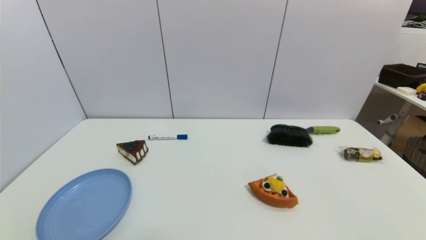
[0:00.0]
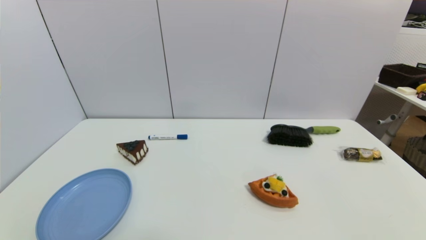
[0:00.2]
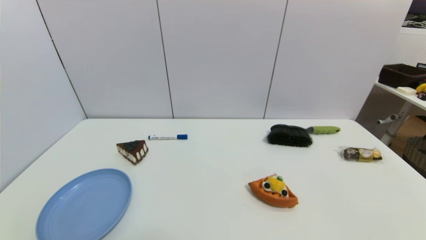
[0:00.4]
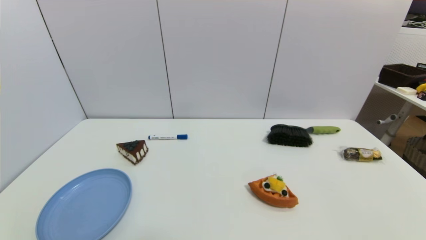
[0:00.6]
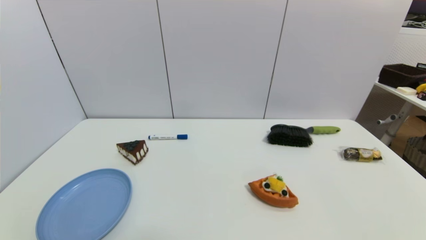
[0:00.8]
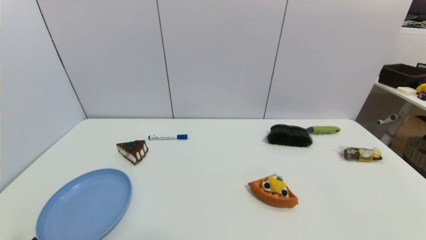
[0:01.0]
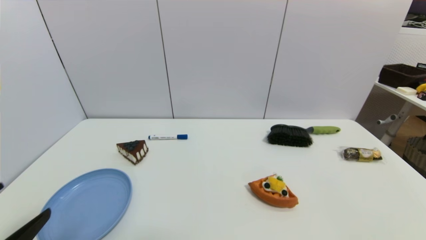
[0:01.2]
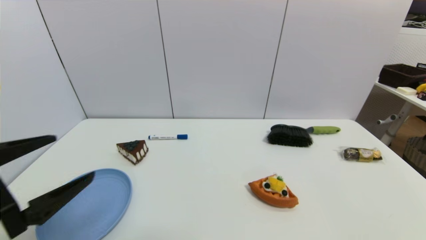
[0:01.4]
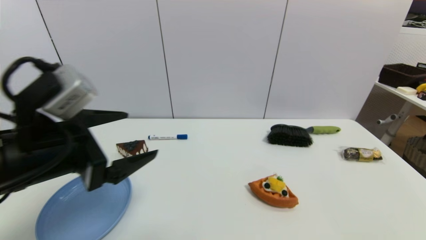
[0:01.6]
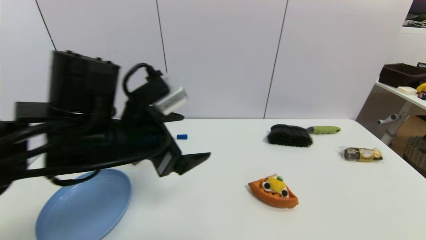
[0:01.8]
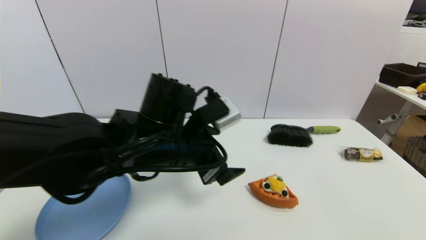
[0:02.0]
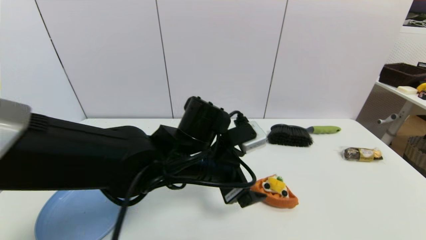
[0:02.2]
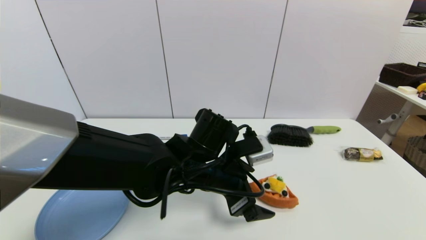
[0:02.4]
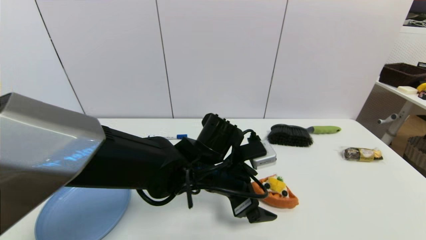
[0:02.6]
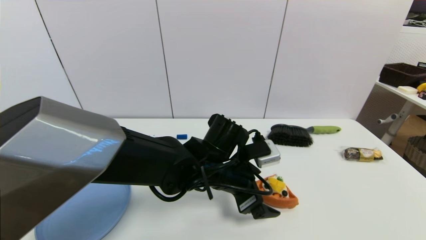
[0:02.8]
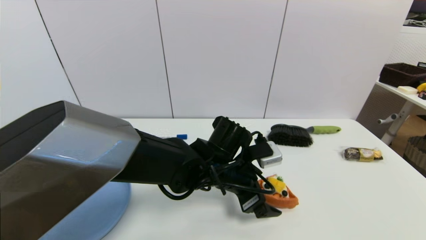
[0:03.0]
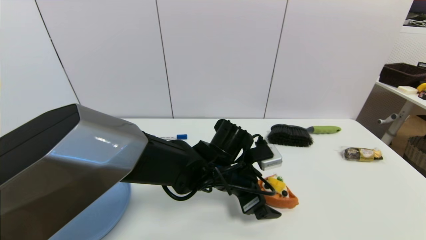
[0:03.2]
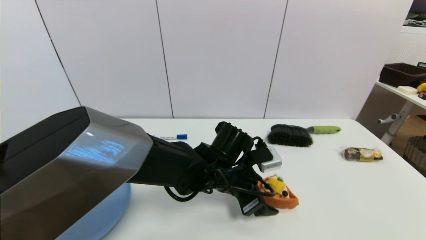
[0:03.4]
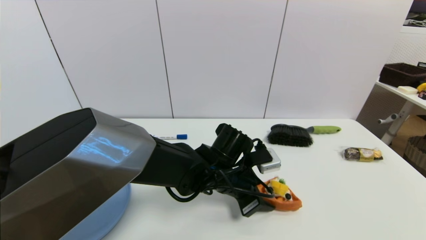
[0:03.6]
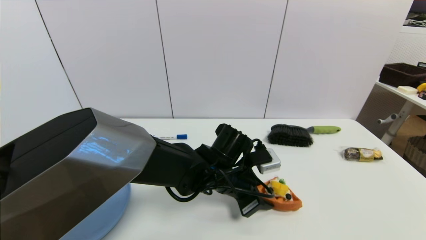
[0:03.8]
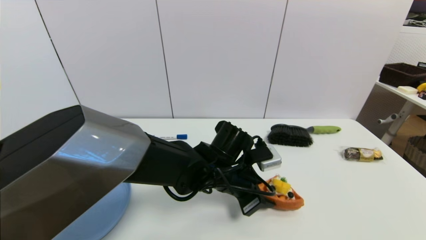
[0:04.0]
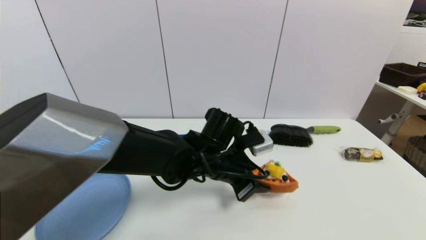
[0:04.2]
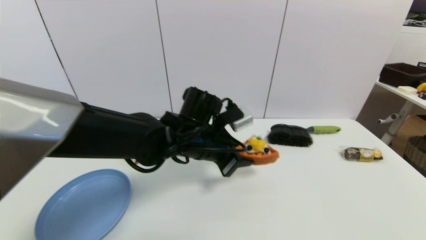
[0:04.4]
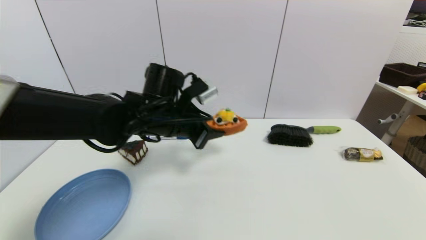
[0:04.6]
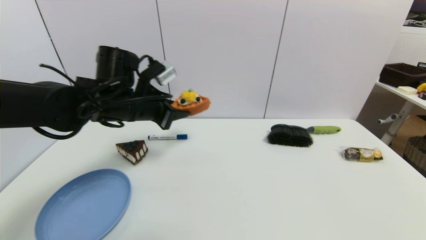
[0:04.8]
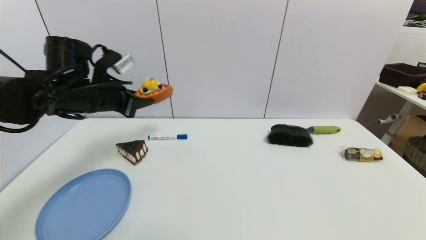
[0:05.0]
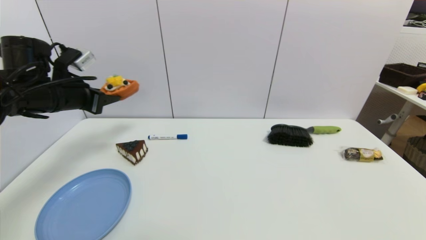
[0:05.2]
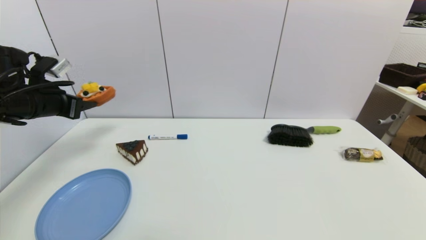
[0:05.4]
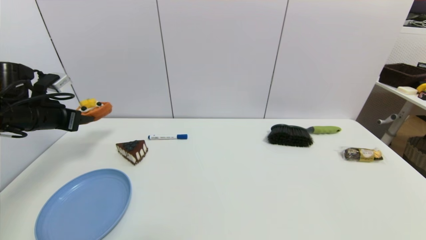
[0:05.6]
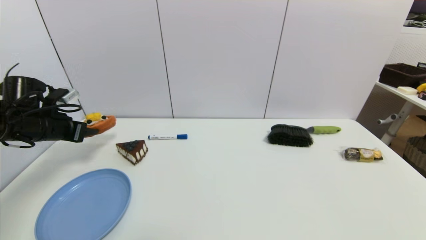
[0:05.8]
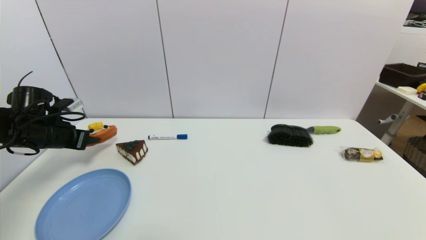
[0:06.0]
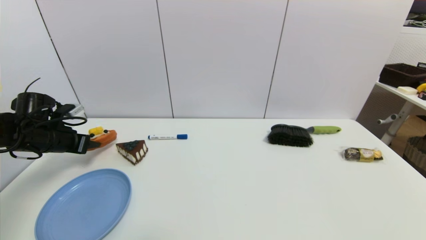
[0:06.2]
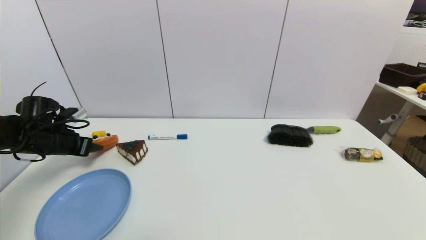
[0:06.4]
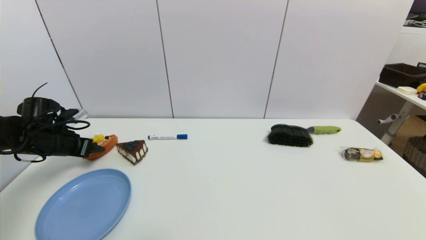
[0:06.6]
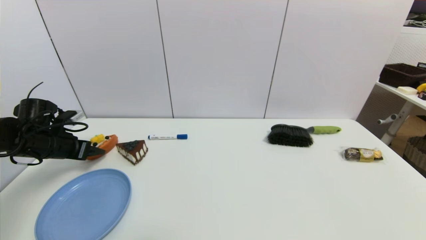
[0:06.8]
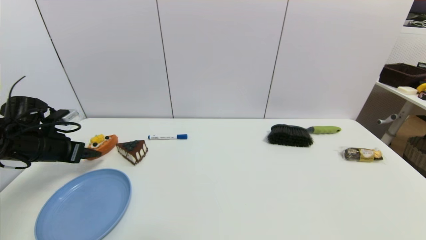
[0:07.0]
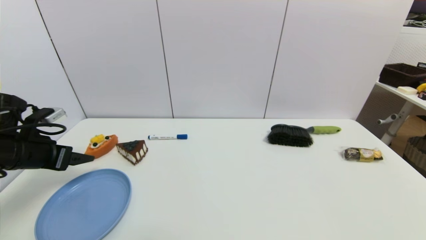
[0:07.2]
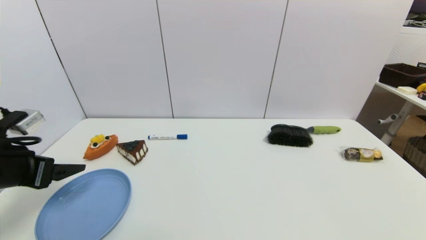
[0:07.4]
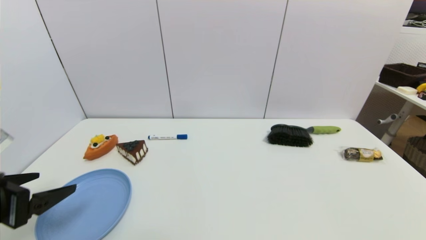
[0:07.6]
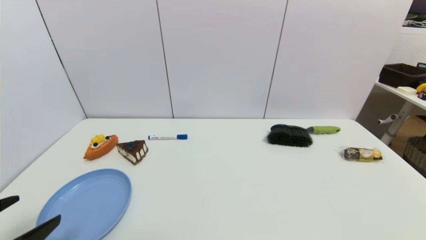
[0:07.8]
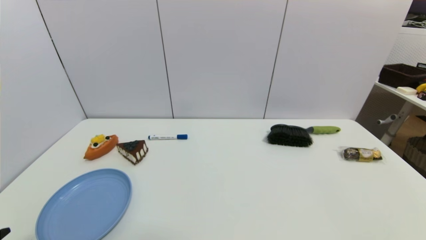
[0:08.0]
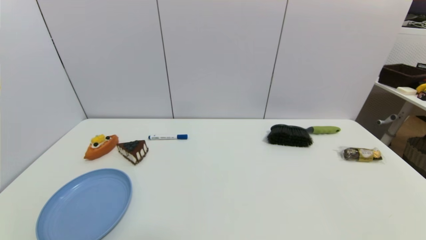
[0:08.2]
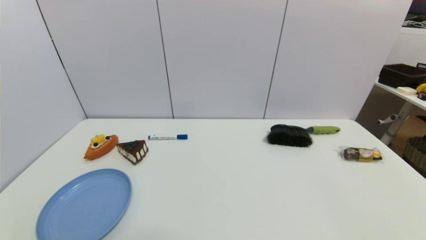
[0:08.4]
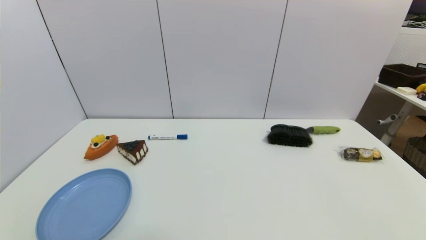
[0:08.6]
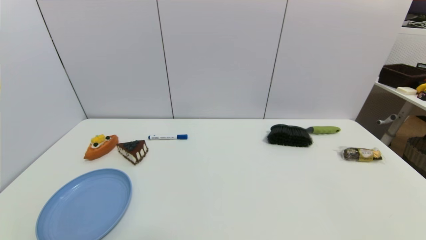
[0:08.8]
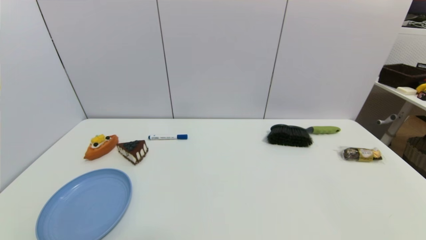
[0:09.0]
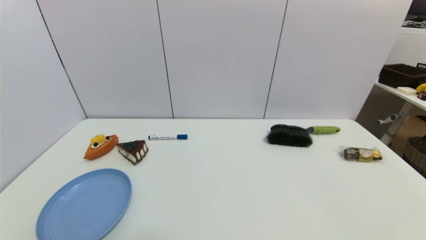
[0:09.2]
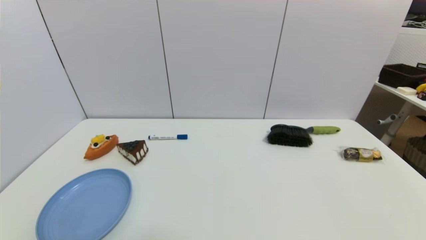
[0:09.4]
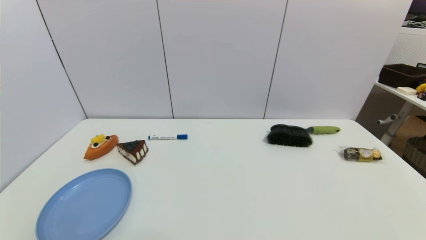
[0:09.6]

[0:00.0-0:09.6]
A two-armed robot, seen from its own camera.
Step, 0:01.0 to 0:03.8: Grasp the pizza with left gripper.
Step, 0:04.2 to 0:06.8: Place the pizza on the table with left gripper.
0:00.0 to 0:01.6: The left gripper shifts roughly 30 cm upward, forward and to the right.
0:01.6 to 0:03.2: The left gripper shifts some 30 cm to the right, downward and forward.
0:03.2 to 0:04.8: The left gripper moves to the left and upward, roughly 25 cm, and closes up.
0:04.8 to 0:06.4: The left gripper moves to the left and downward, some 25 cm.
0:06.4 to 0:08.0: The left gripper travels backward by about 35 cm, and opens up.

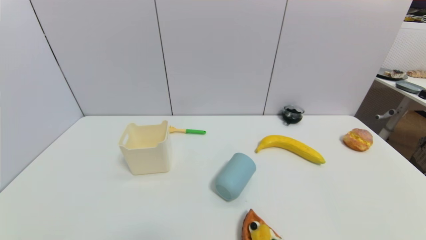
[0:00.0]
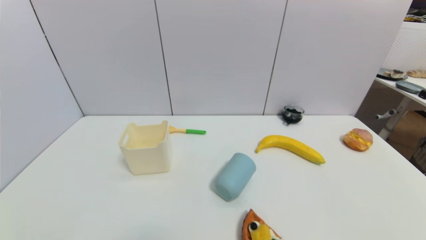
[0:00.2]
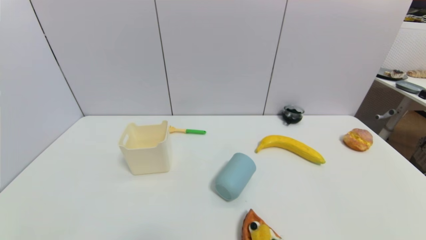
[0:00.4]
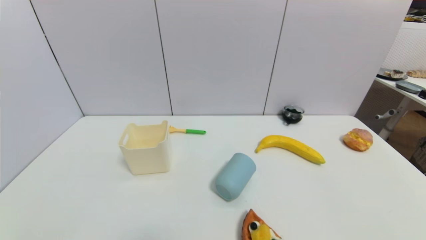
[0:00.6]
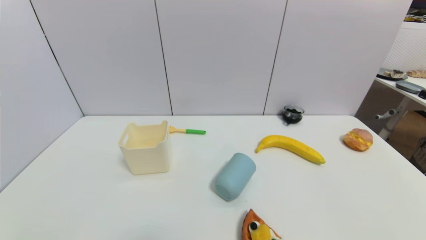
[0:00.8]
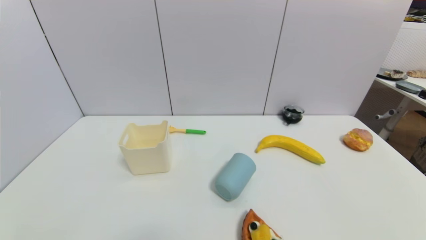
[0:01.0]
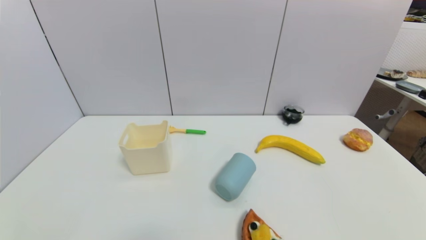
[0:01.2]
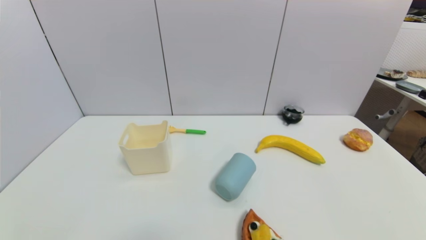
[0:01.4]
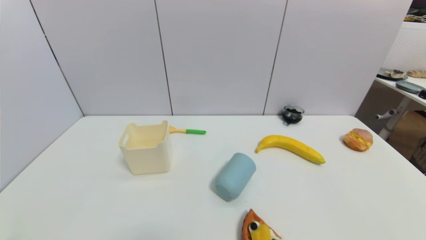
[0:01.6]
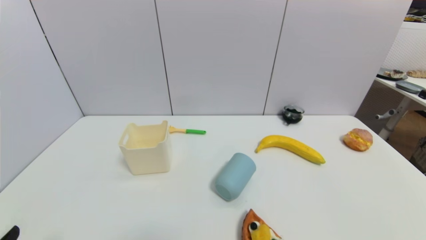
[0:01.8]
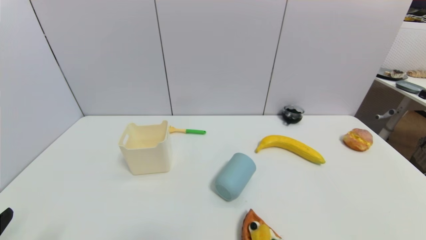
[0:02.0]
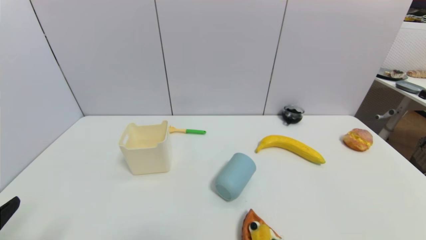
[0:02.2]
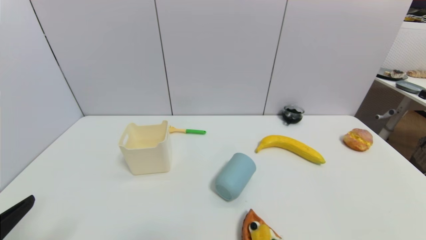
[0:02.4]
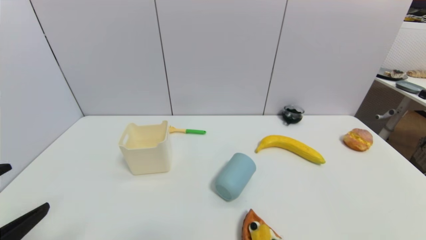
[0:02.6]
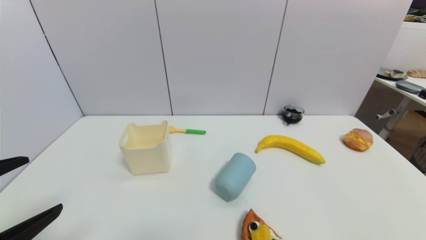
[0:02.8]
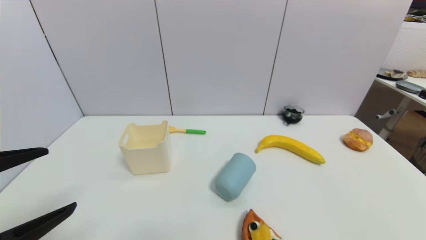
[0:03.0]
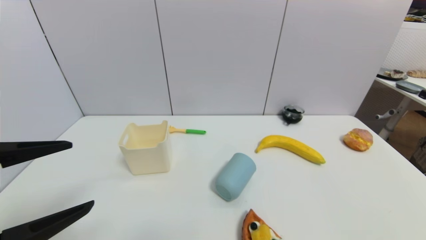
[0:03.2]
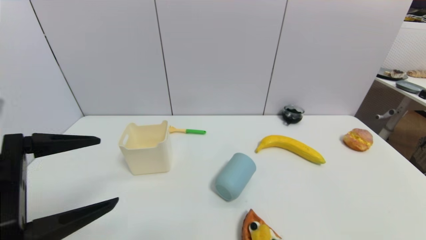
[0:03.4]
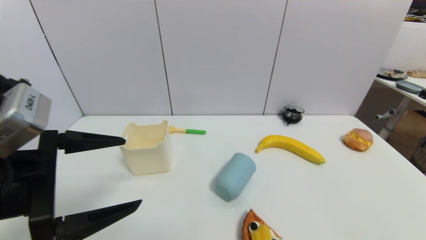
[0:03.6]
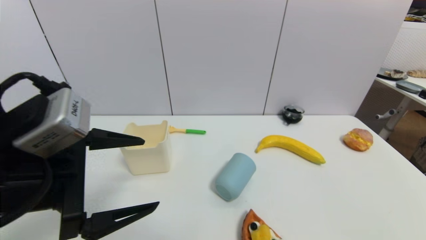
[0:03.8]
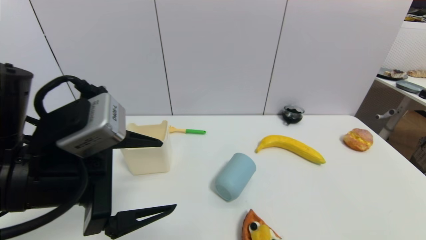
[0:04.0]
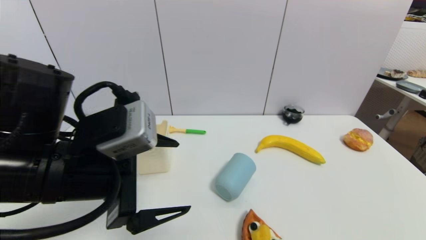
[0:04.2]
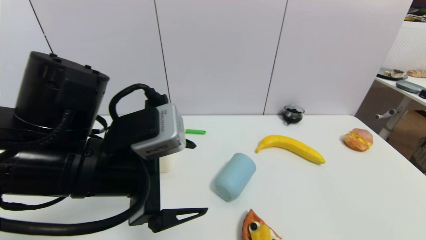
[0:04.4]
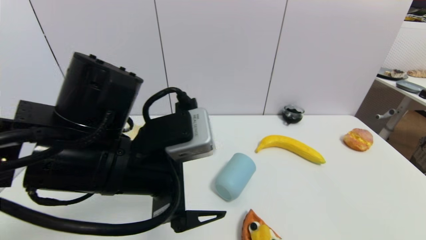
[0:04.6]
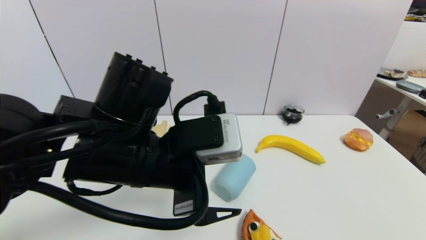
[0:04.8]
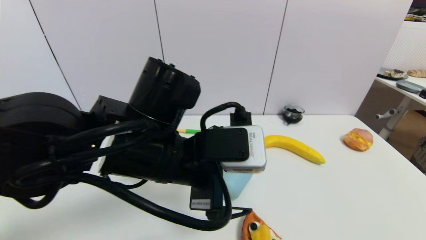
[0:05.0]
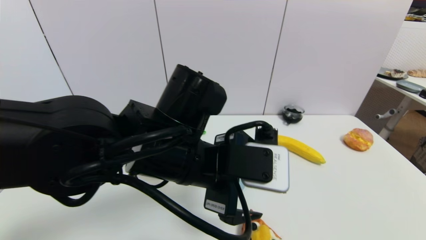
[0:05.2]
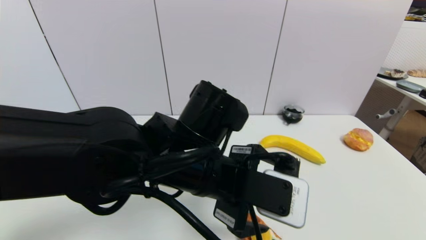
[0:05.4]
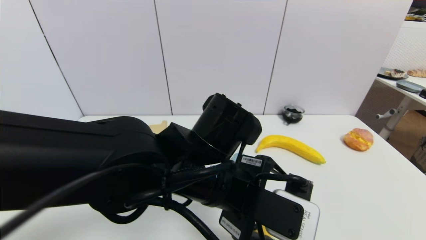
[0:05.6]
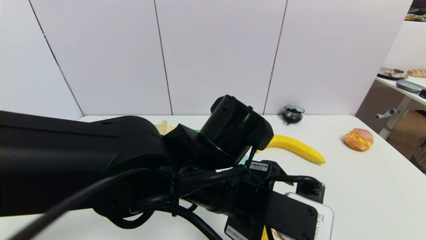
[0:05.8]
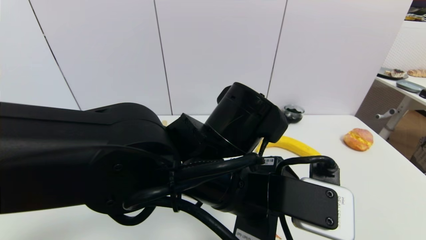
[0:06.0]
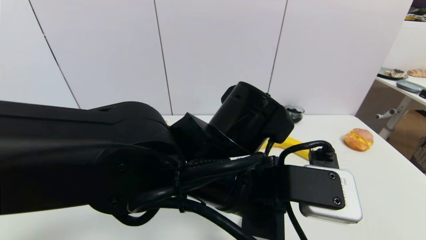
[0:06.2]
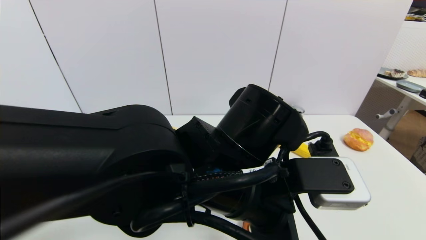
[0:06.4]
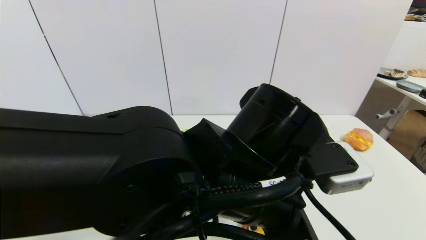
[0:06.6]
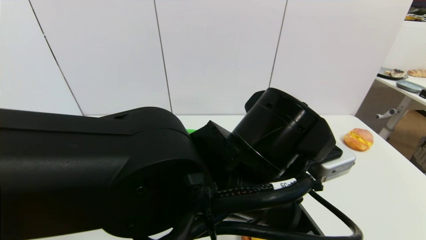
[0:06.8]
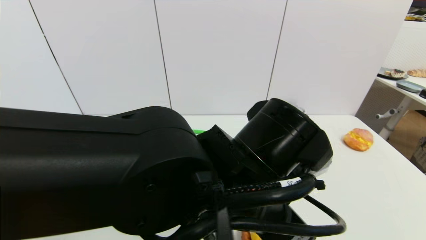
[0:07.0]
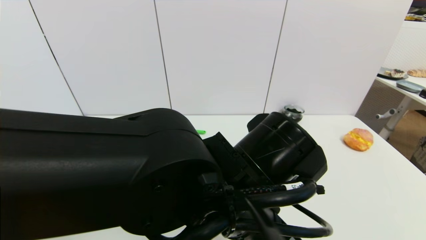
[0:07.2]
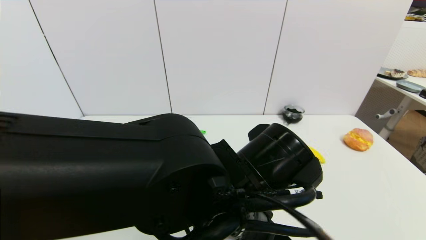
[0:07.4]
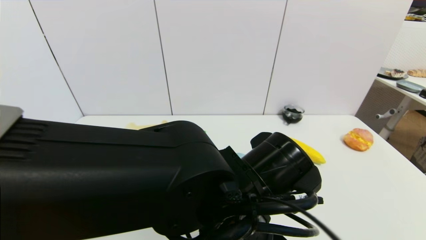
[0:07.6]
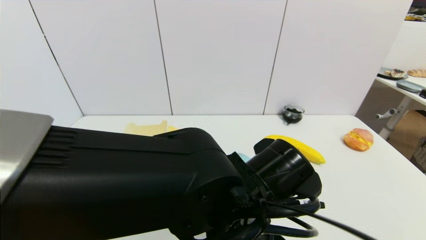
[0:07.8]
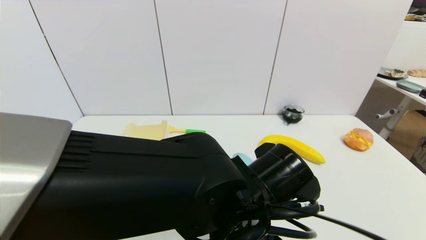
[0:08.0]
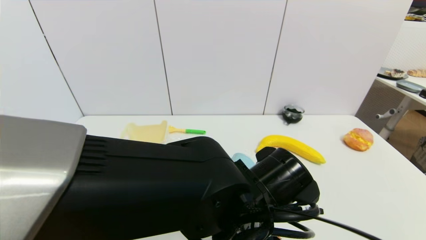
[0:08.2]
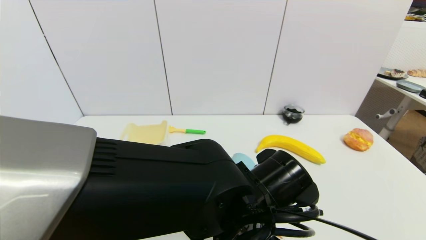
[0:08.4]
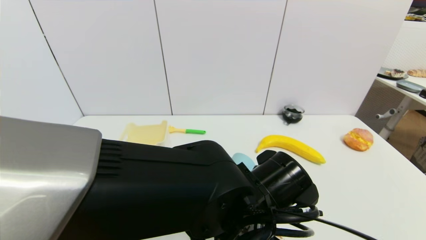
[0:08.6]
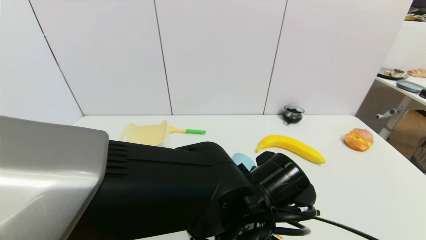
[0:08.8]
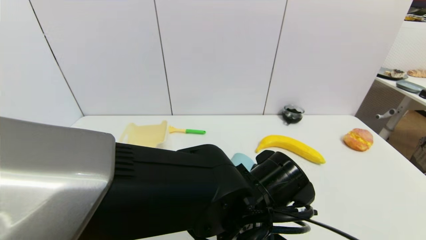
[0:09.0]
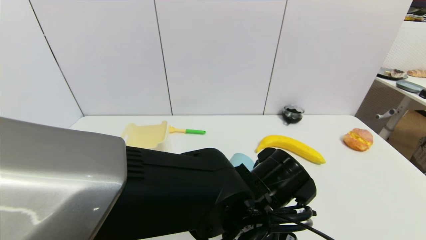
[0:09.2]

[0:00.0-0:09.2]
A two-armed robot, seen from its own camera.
0:01.6 to 0:03.0: The left gripper shifts about 15 cm upward and forward.
0:03.0 to 0:04.6: The left gripper goes approximately 20 cm to the right and forward.
0:04.6 to 0:06.2: The left gripper heads to the right, covering roughly 10 cm.
0:07.6 to 0:09.2: The left gripper shifts approximately 5 cm downward.
